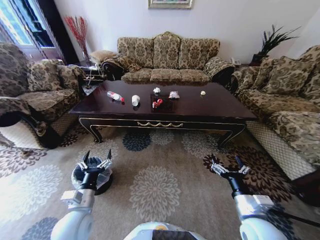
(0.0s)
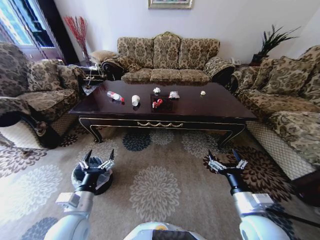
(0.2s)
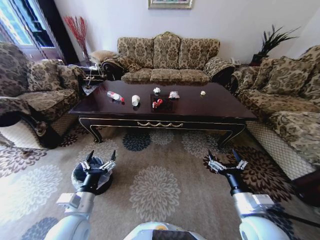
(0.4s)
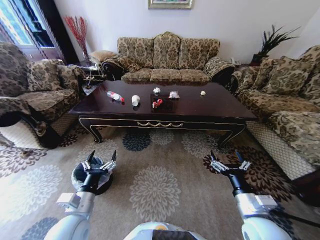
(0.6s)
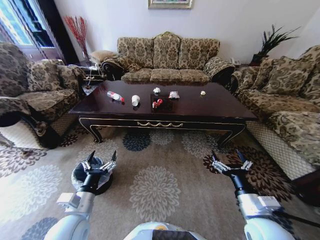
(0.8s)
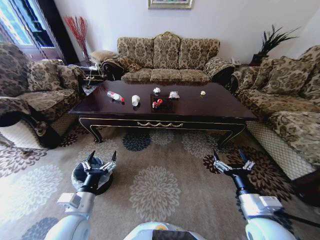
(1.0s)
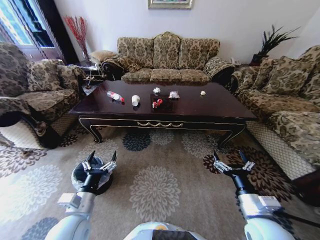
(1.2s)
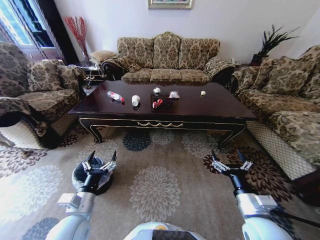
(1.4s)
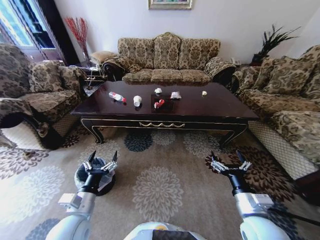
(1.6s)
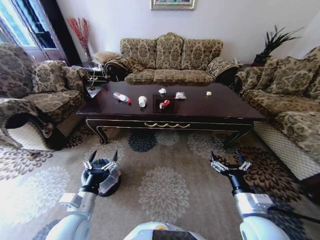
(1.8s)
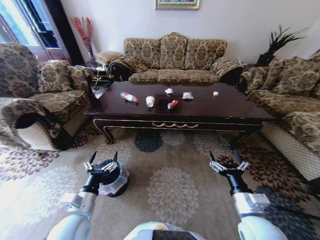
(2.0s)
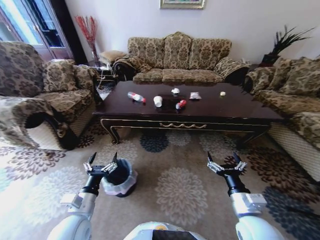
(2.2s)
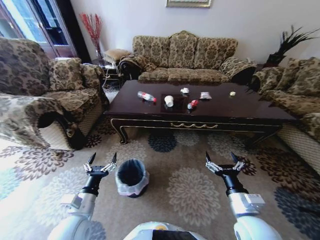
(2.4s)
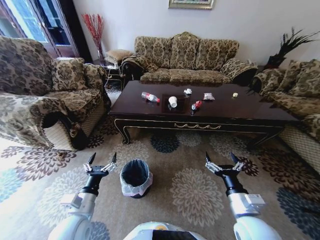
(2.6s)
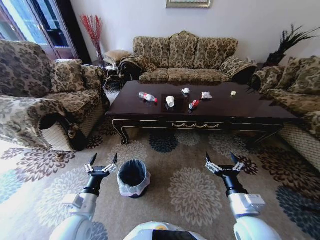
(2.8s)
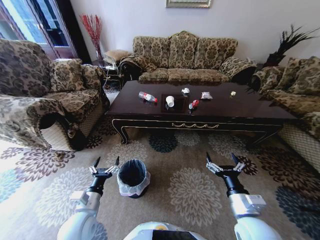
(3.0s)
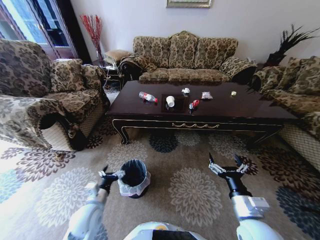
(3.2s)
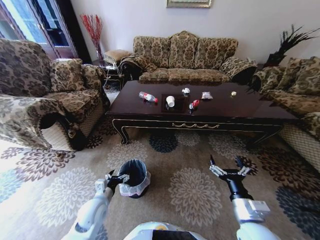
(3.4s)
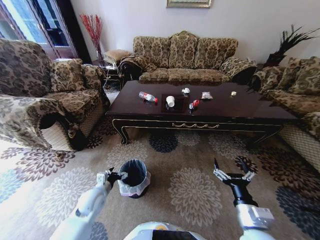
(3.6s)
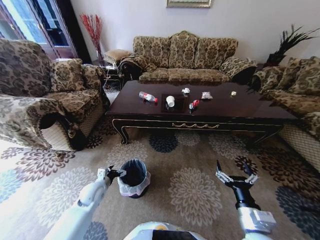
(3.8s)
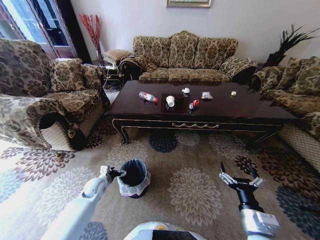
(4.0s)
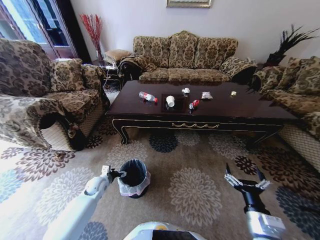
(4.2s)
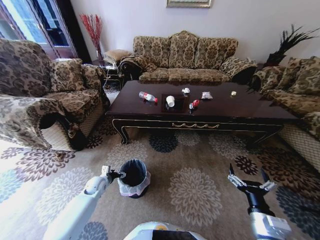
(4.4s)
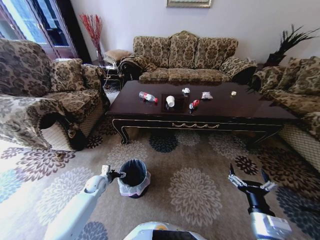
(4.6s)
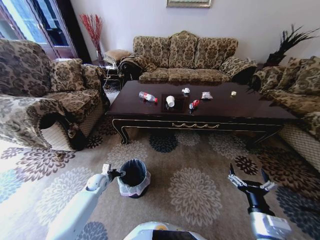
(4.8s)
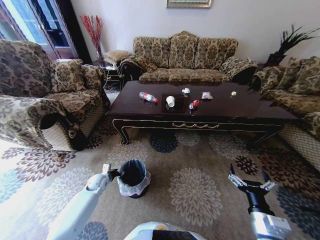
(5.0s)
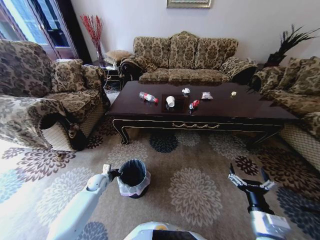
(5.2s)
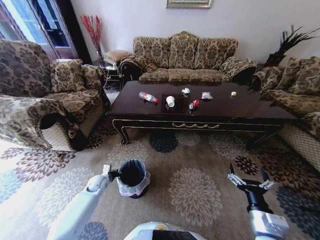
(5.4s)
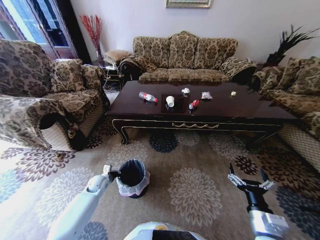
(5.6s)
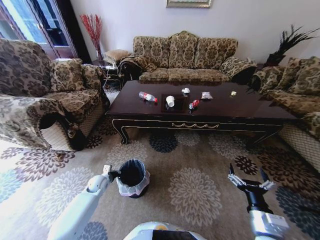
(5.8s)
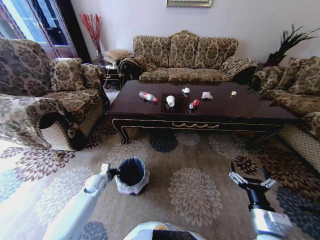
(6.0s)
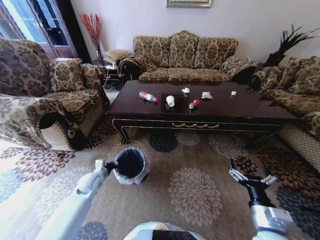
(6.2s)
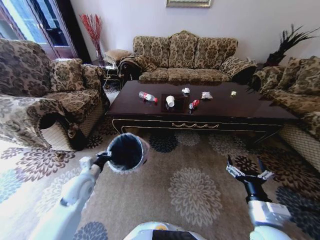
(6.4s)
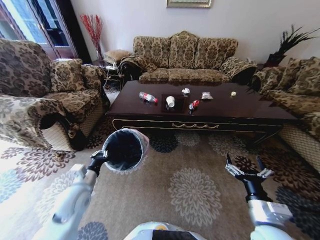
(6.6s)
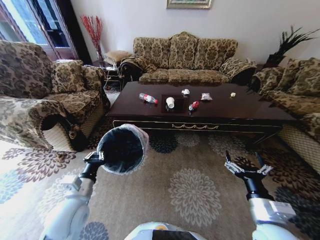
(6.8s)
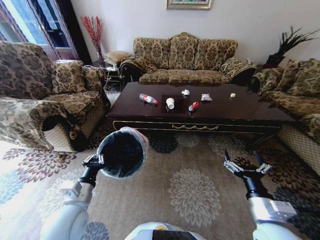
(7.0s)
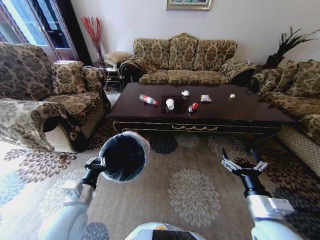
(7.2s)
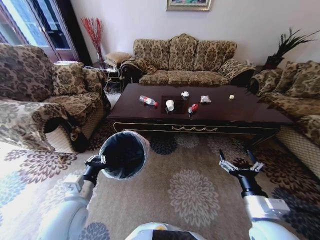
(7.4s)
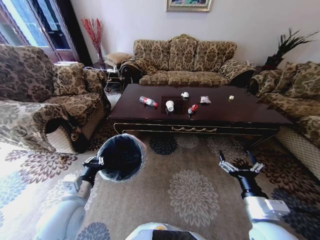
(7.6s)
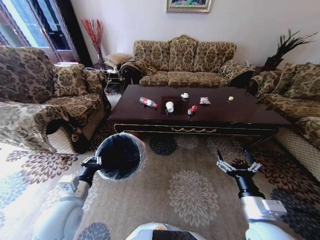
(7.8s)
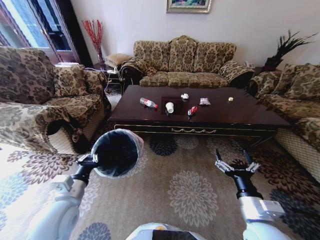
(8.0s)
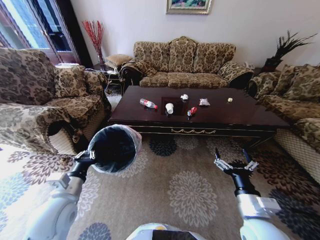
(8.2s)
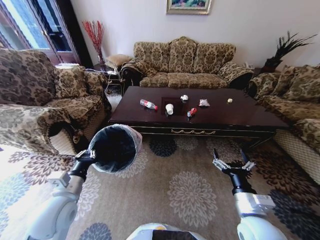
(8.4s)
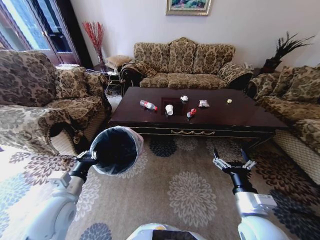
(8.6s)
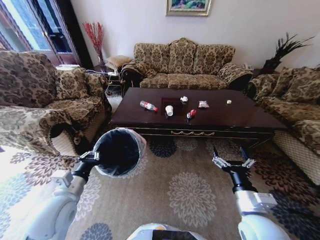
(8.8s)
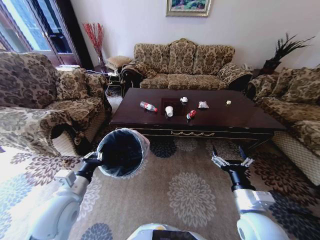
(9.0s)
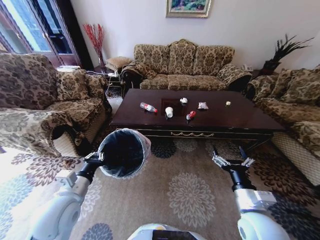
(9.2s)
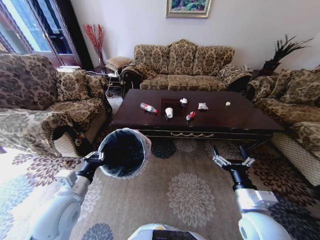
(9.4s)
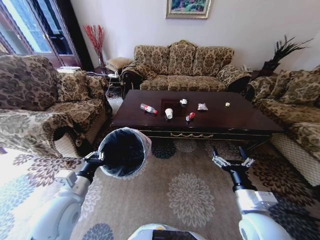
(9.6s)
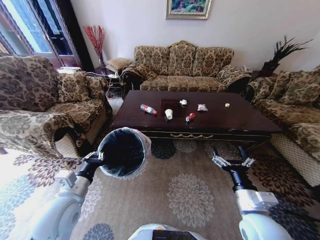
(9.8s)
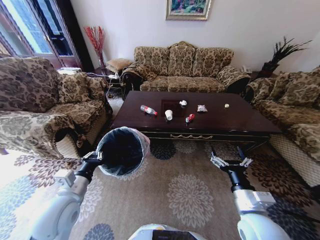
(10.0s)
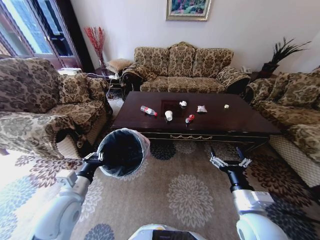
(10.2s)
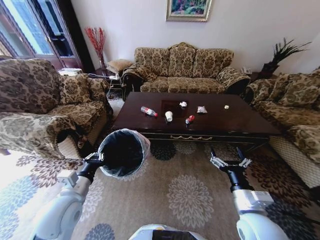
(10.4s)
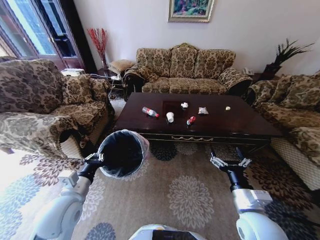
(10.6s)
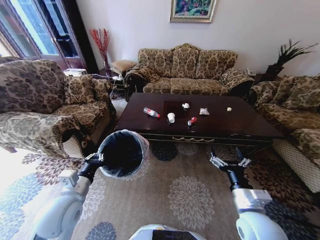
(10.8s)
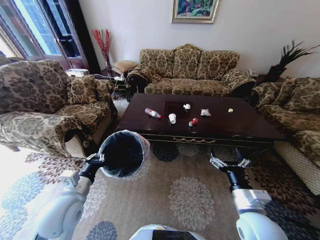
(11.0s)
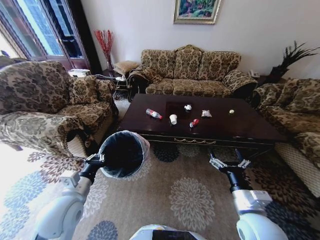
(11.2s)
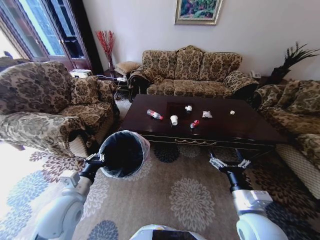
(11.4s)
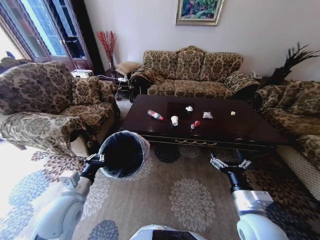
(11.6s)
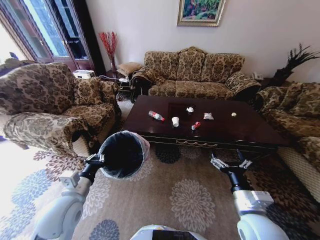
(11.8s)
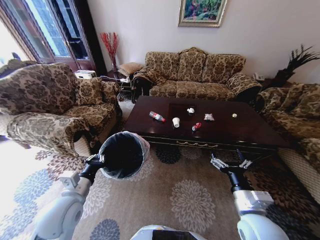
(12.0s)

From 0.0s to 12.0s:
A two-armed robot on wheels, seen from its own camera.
Task of the whole recording: Move to the front of the table and place the trash on the table into the trash bin.
From 1.6s to 3.0s: The left gripper goes approximately 5 cm downward.
From 3.0s to 4.4s: The left gripper shifts roughly 20 cm forward, downward and to the left, while the right gripper shifts by some 5 cm.
From 4.4s to 6.0s: The left gripper closes.
From 6.0s to 7.6s: The left gripper is displaced upward and backward by about 25 cm.

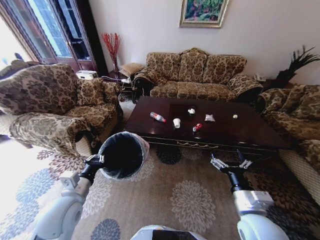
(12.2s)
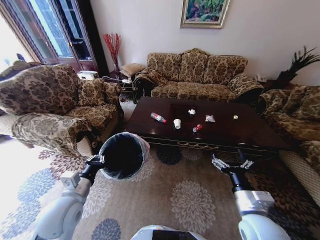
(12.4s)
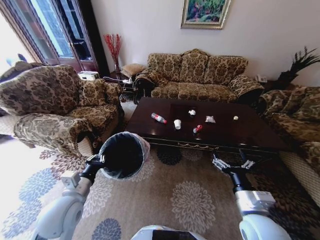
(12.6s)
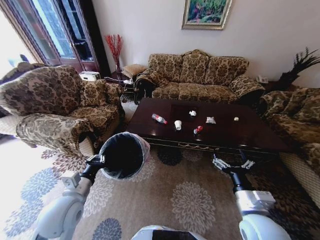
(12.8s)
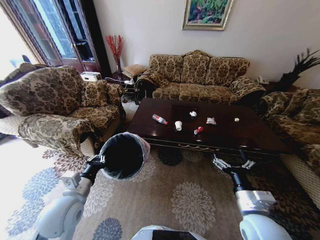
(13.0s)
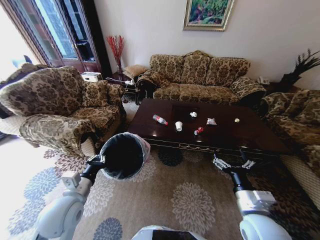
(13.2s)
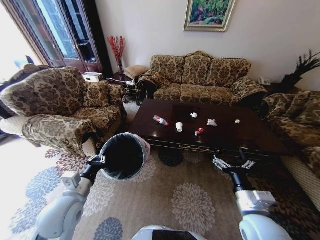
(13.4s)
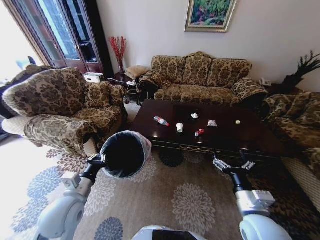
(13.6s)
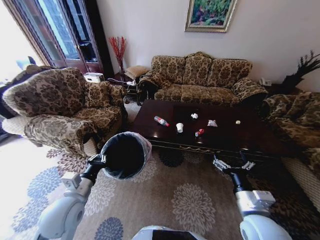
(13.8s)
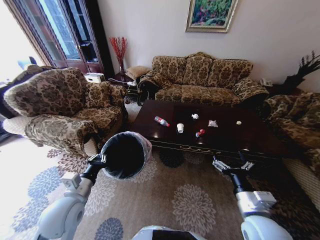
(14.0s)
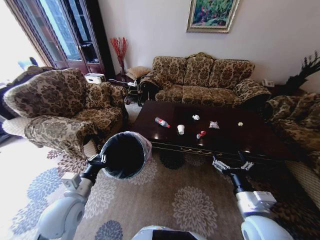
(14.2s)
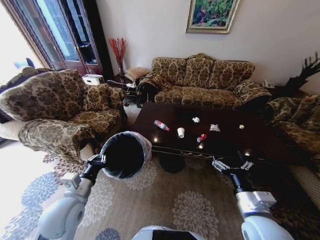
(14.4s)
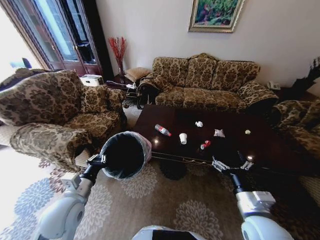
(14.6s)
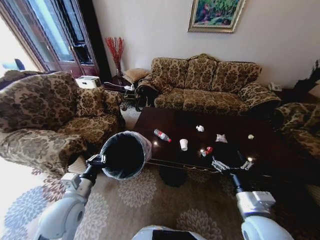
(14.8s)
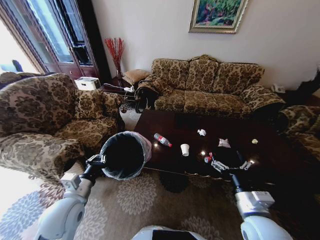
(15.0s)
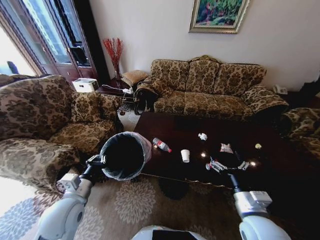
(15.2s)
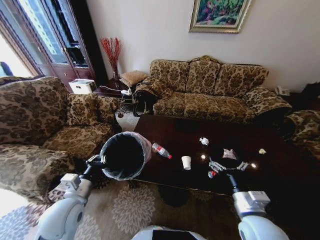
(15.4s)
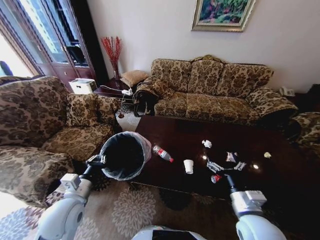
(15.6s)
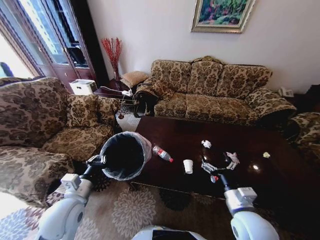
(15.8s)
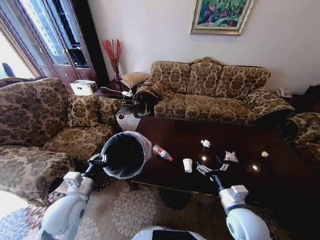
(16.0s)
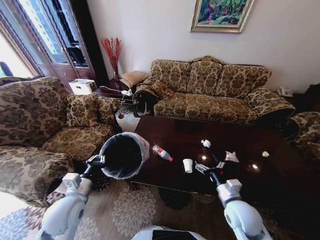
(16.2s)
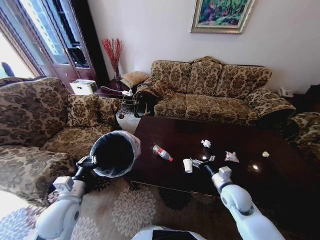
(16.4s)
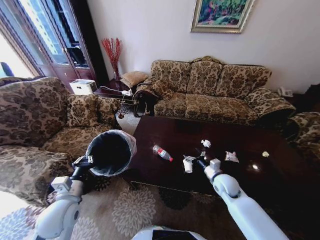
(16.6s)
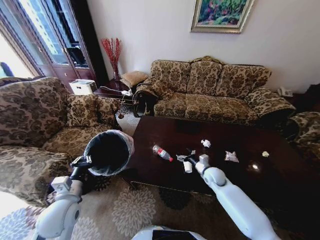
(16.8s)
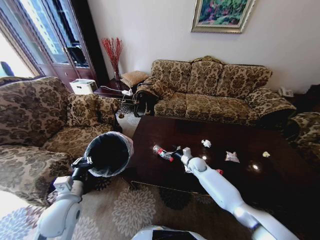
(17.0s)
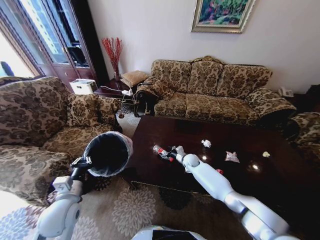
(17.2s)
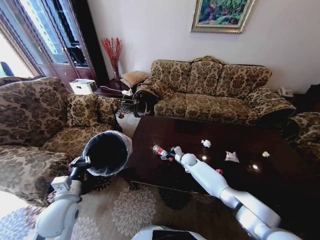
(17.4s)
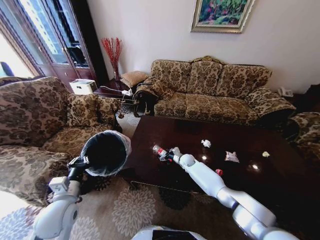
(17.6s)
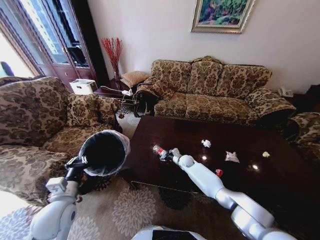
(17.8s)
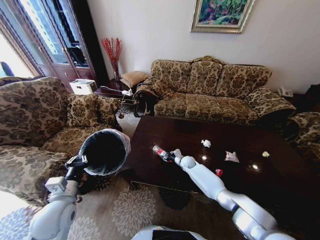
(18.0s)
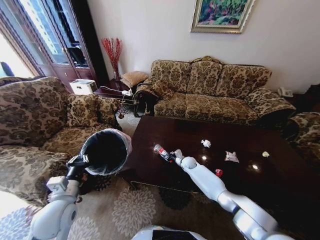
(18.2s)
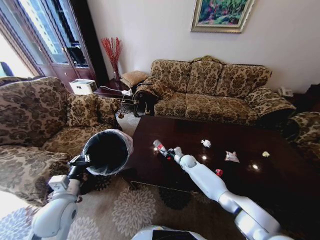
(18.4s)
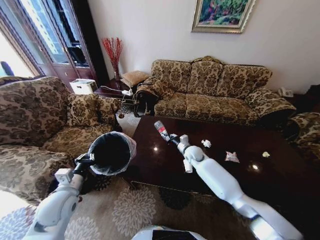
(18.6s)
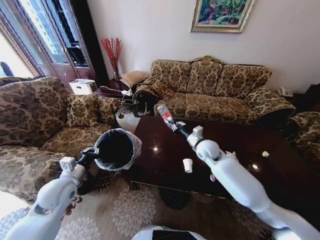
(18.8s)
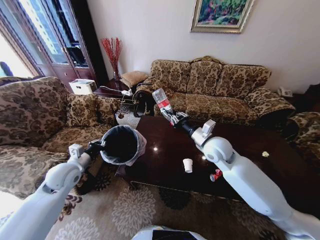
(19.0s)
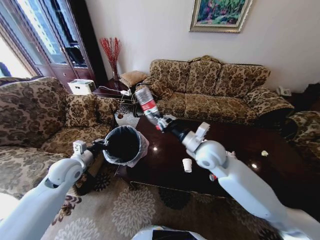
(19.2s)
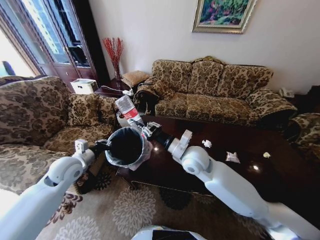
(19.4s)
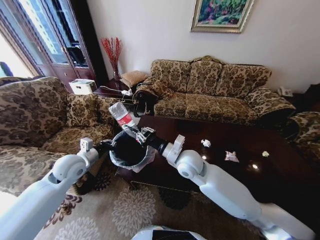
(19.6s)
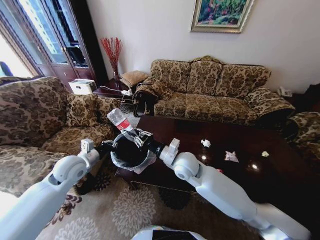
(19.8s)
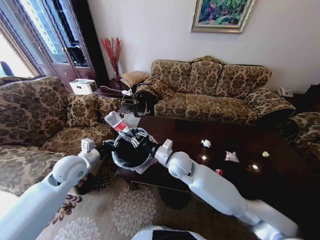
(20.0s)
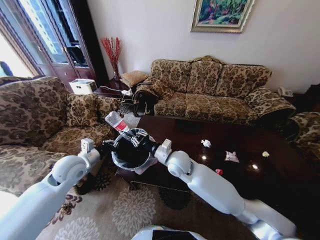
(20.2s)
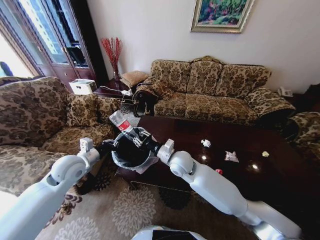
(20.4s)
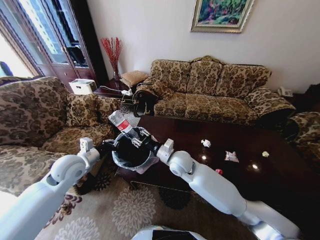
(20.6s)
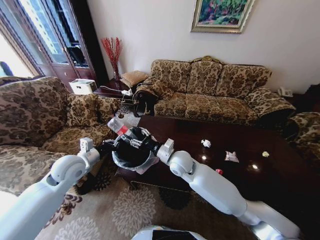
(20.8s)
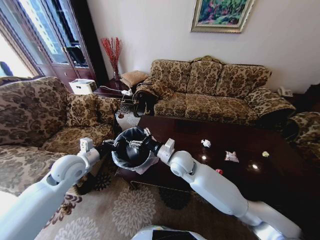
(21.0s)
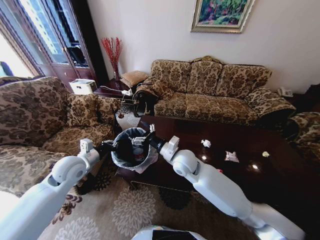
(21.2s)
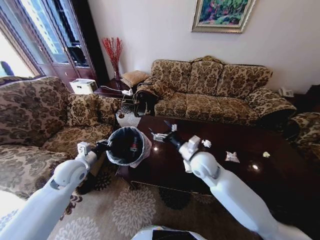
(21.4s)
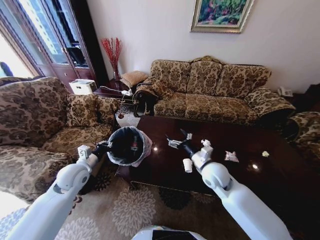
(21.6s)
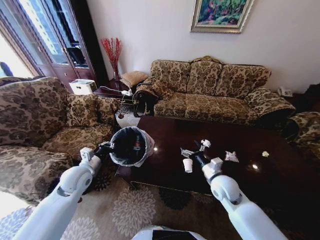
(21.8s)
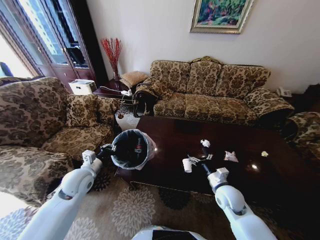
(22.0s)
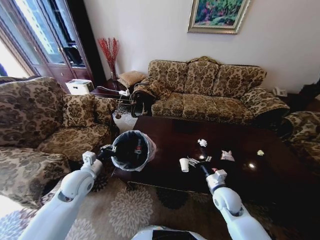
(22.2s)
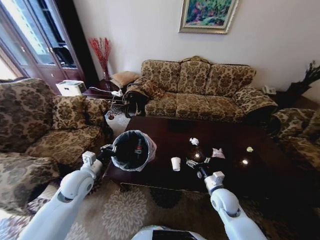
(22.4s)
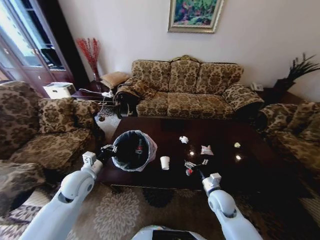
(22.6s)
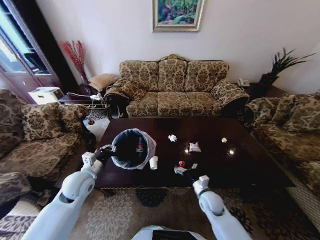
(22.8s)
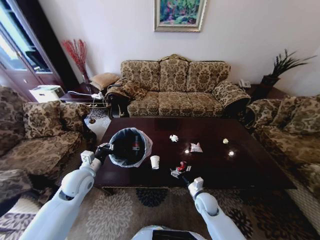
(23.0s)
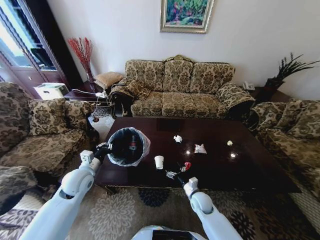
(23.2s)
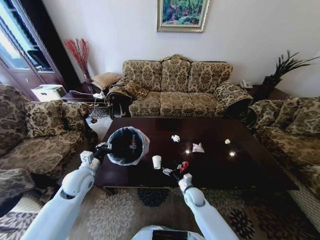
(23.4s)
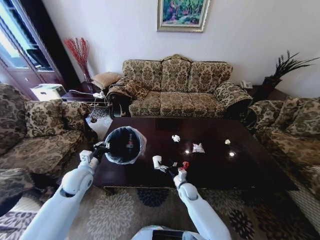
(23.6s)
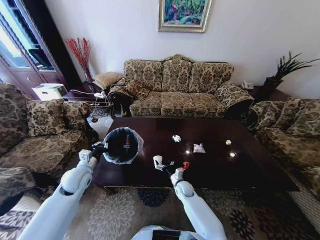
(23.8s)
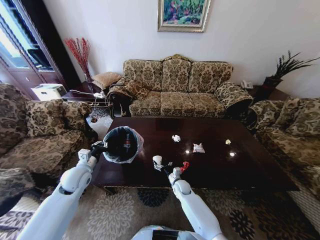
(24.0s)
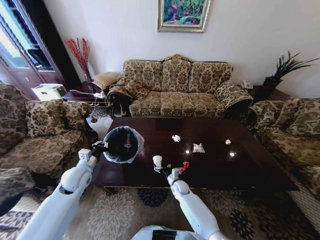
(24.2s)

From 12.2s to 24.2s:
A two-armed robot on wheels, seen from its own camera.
Task of the whole recording: Move to the front of the table and place the trash on the table into the trash bin.
From 15.2s to 16.6s: The right gripper goes some 20 cm forward and downward.
From 16.6s to 18.2s: The right gripper shifts approximately 25 cm forward, downward and to the left, and closes its fingers.
From 18.2s to 19.8s: The right gripper goes about 30 cm upward and backward. The left gripper moves forward, approximately 15 cm.
From 19.8s to 21.2s: The right gripper opens up.
From 21.2s to 22.6s: The left gripper moves downward, some 5 cm. Meanwhile the right gripper is displaced to the right, downward and backward by roughly 25 cm.
From 22.6s to 24.2s: The right gripper travels downward, to the left and forward by some 25 cm; the left gripper ends up about 5 cm from where it was.
